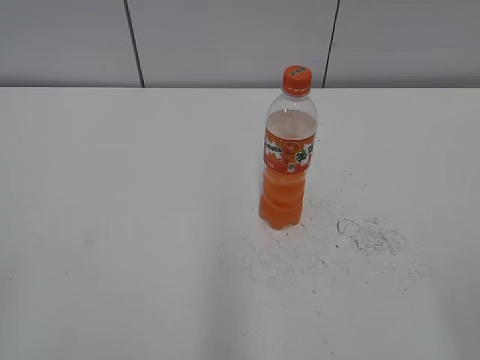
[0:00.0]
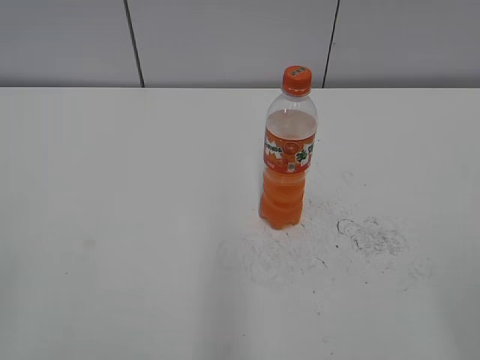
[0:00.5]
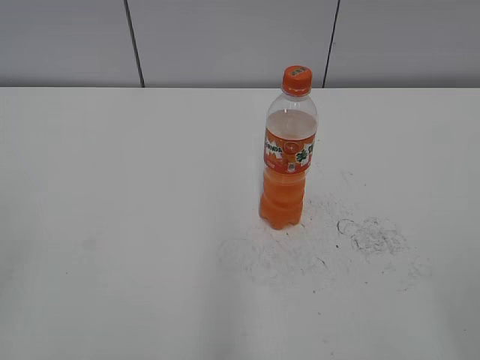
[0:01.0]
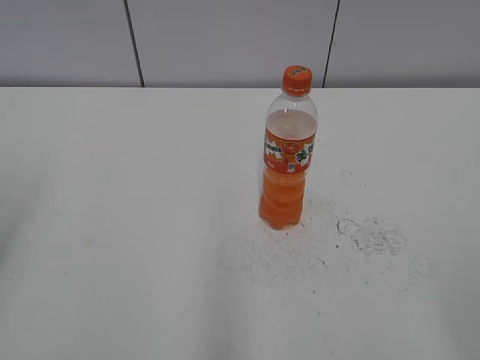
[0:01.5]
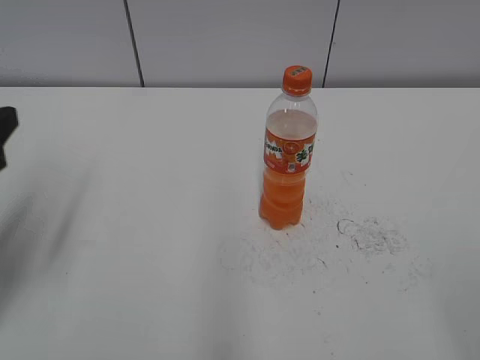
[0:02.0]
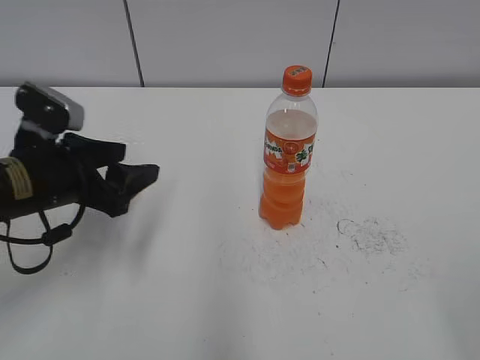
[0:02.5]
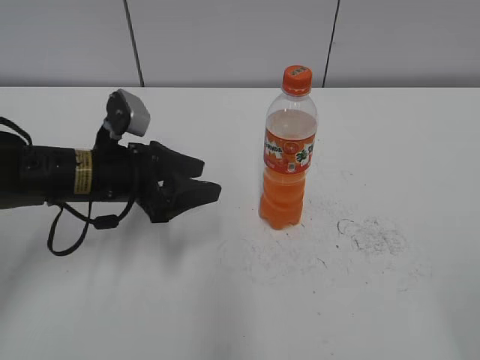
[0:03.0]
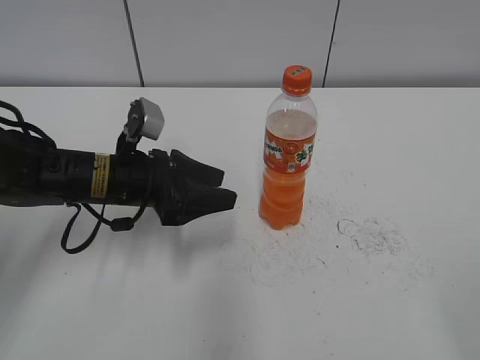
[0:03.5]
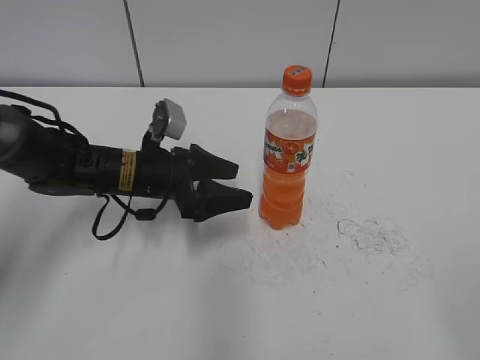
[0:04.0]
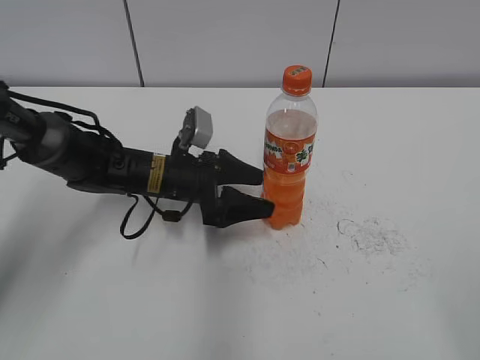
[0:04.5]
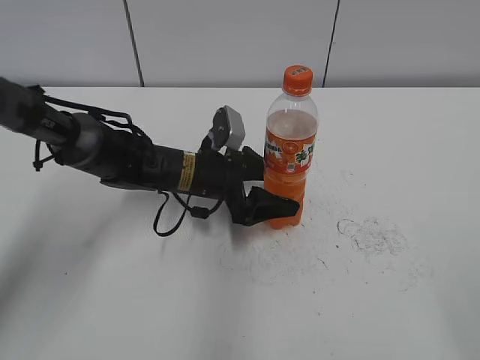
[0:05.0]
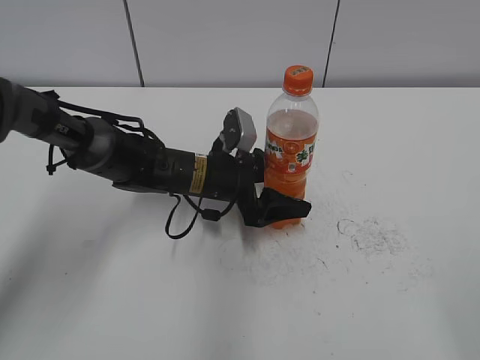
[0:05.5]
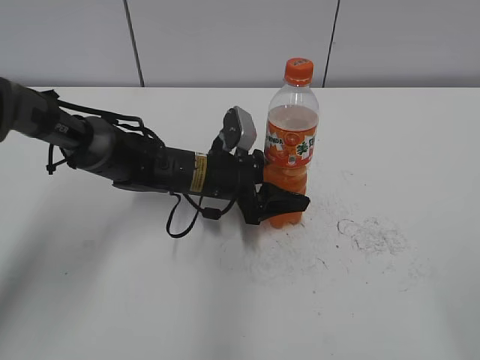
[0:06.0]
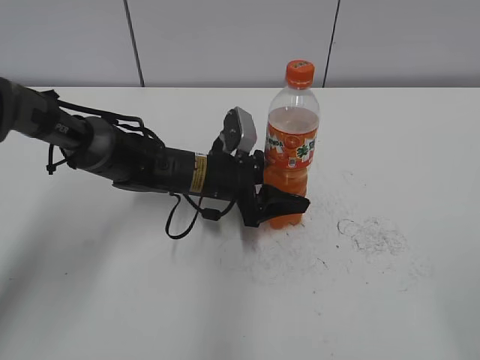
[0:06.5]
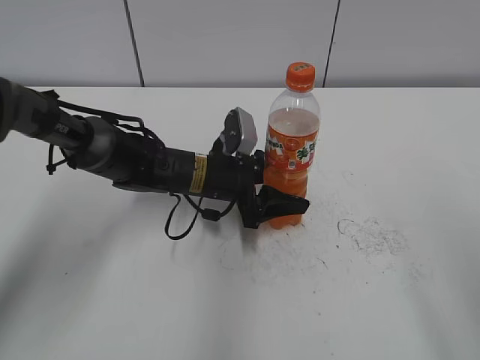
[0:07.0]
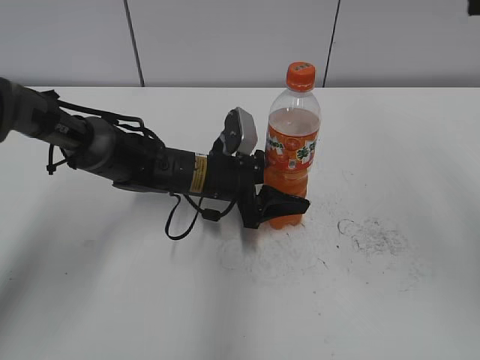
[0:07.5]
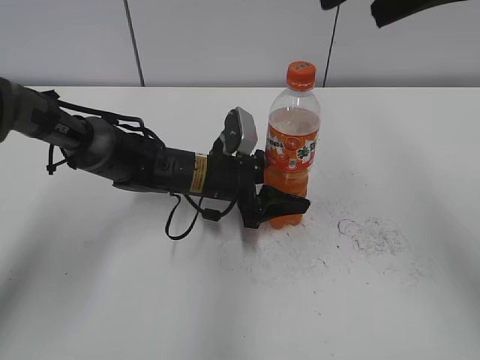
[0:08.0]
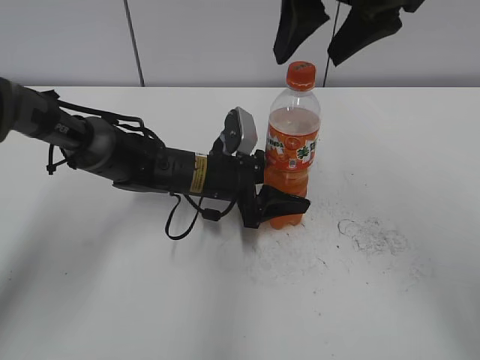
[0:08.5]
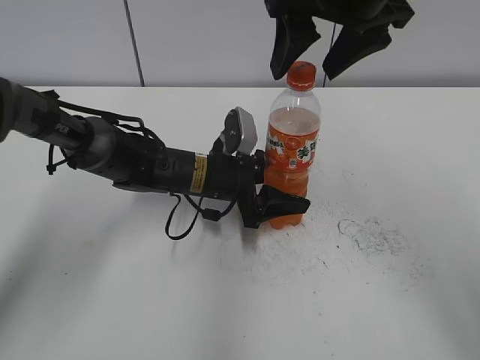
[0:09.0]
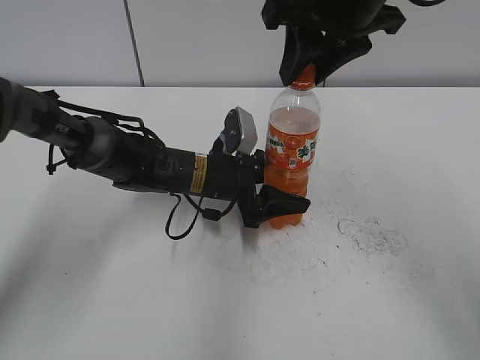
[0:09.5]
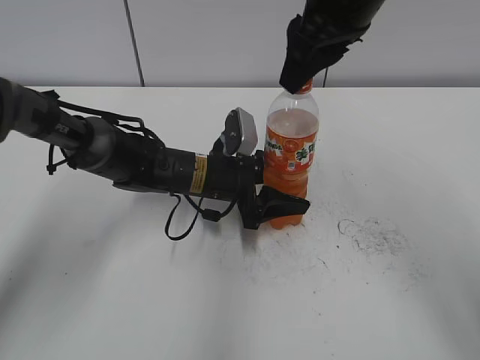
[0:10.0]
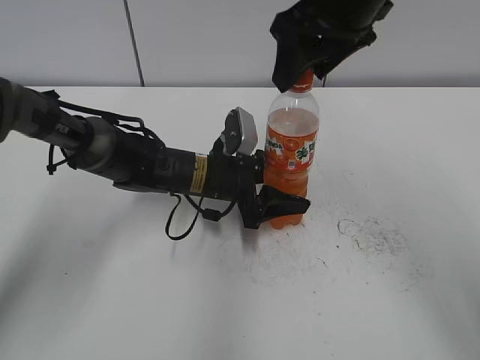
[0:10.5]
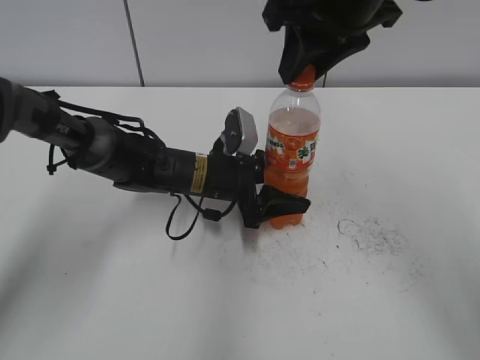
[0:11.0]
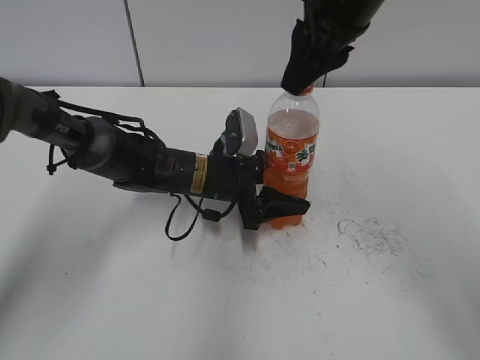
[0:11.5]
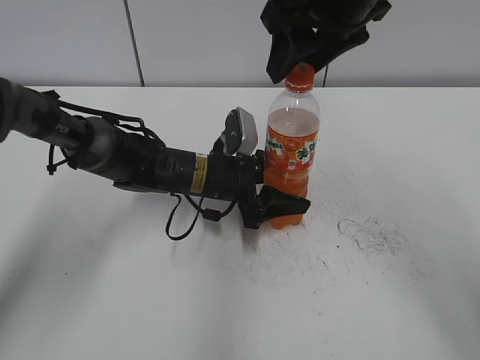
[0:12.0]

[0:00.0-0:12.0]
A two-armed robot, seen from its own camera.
Step, 0:00.0 to 0:07.5: Grab the Mirinda with the left hand.
0:02.0 to 0:04.0: The left gripper heads to the right, forward and downward, covering roughly 25 cm, and opens up.
0:04.0 to 0:06.0: The left gripper moves to the right, about 10 cm, and closes up.
0:06.0 to 0:08.0: The right gripper travels forward, upward and to the left by some 35 cm.
0:08.0 to 0:10.0: The right gripper moves downward, forward and to the left, roughly 10 cm, and closes.
0:10.0 to 0:12.0: The right gripper opens.

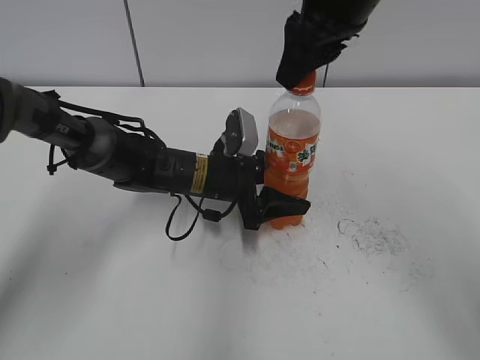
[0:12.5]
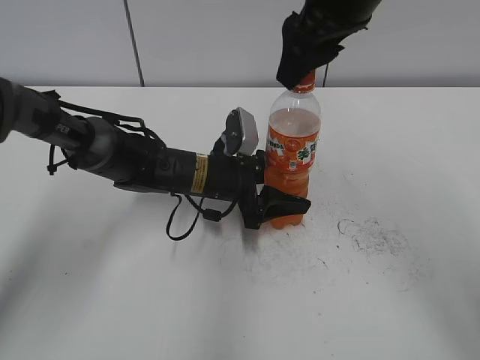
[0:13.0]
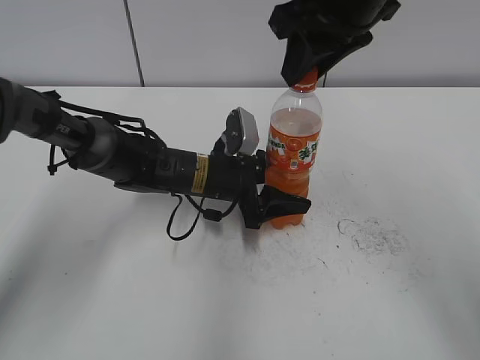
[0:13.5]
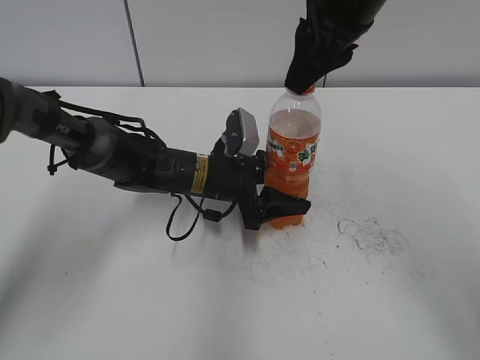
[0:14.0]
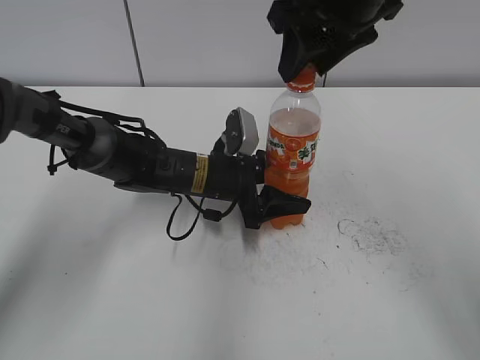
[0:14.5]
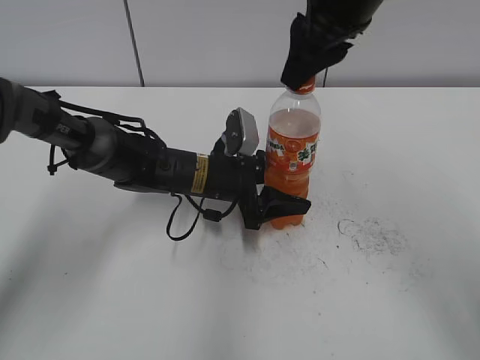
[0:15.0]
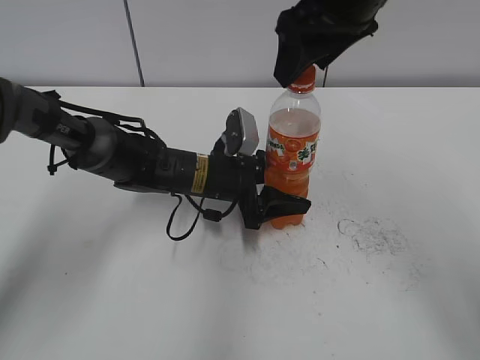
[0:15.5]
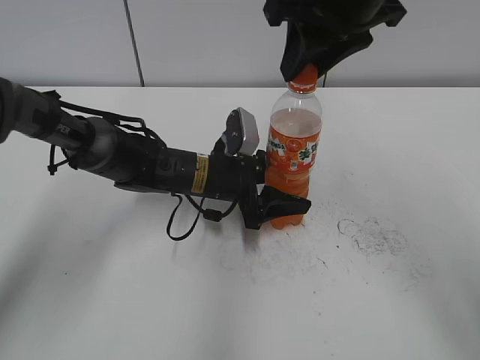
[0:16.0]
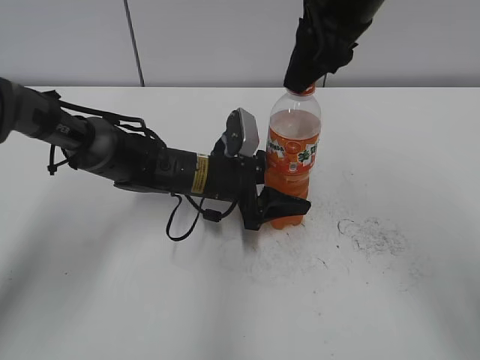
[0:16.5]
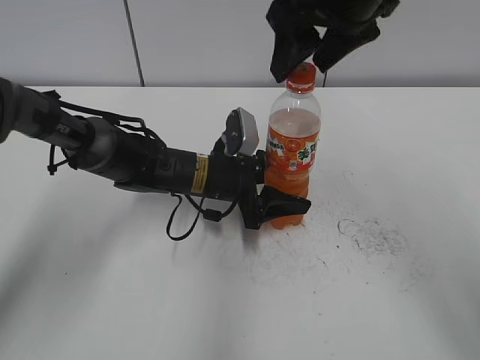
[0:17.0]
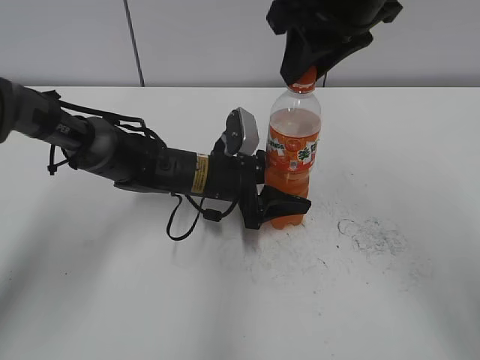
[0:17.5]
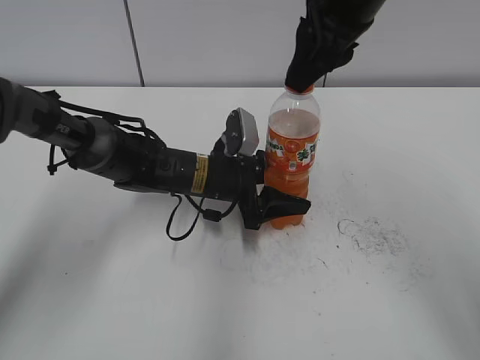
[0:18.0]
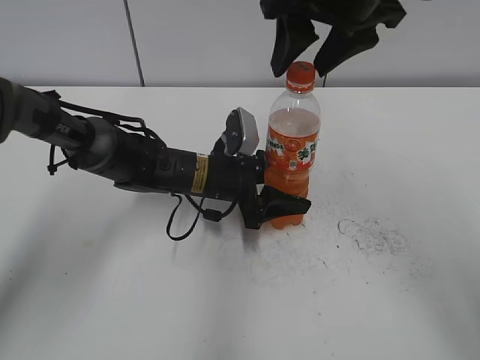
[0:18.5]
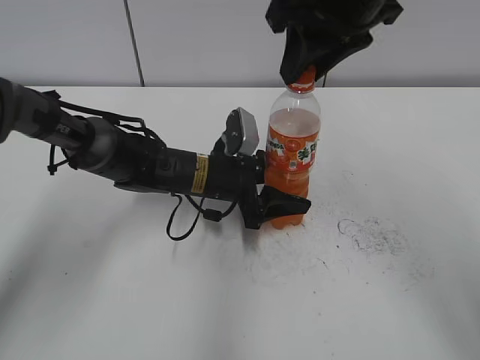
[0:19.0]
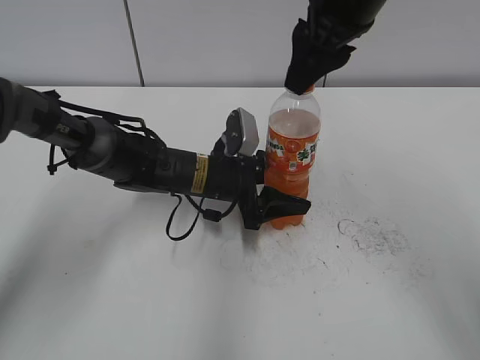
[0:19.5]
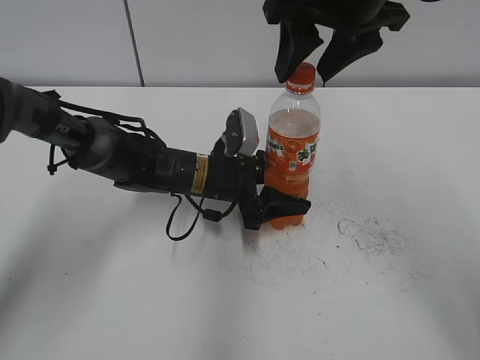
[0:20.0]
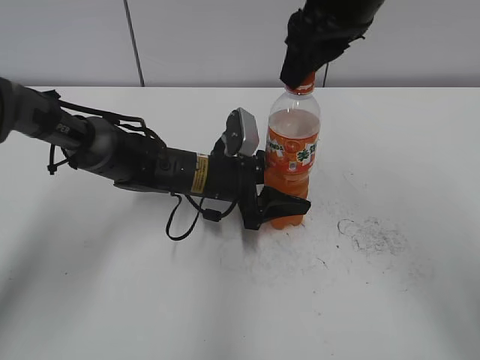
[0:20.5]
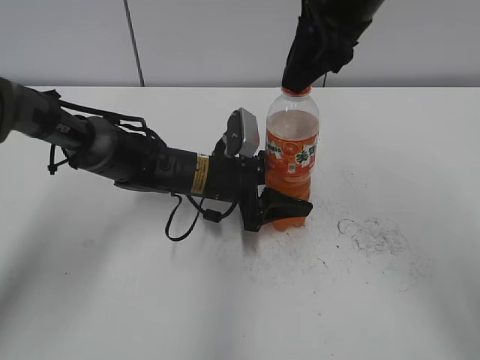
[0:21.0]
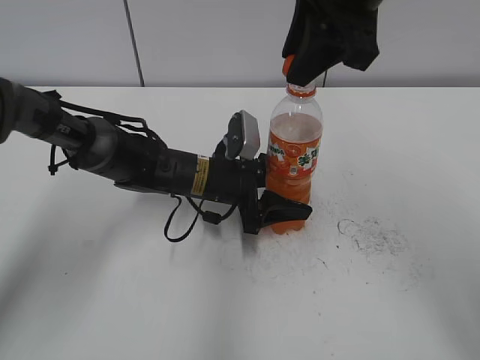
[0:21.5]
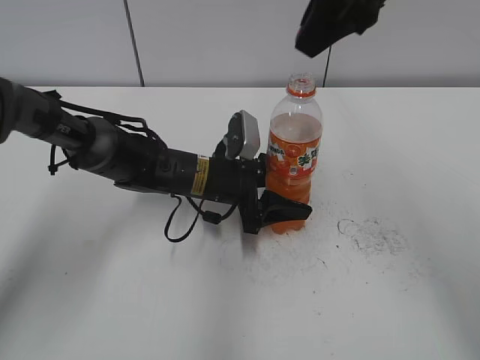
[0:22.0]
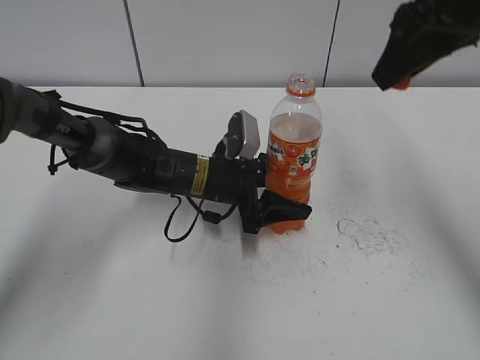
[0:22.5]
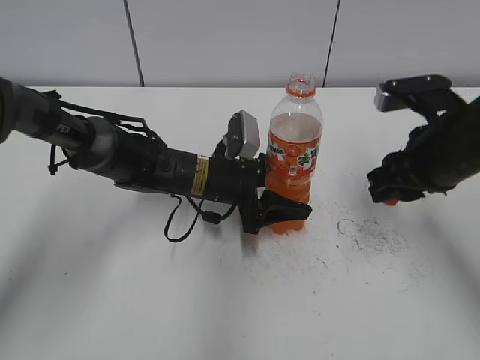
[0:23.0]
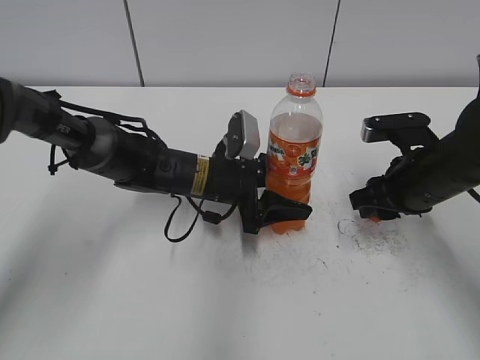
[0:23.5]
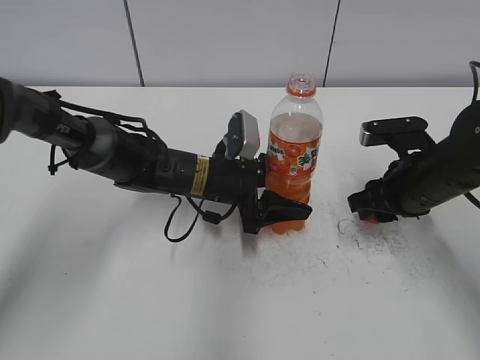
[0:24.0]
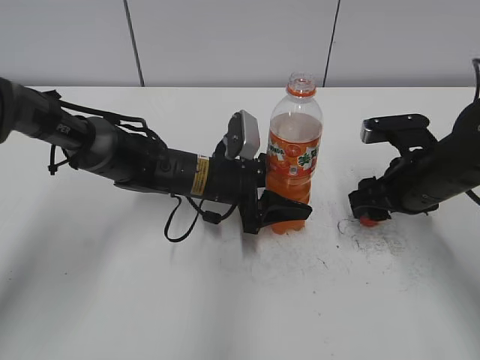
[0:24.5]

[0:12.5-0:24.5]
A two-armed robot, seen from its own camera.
0:12.5 to 0:14.5: The right gripper opens up.
0:14.5 to 0:16.5: The right gripper closes its fingers.
0:16.5 to 0:18.5: The right gripper opens.
0:18.5 to 0:20.5: The right gripper closes up.
0:20.5 to 0:22.5: The right gripper travels to the right by roughly 10 cm.
0:22.5 to 0:24.5: The right gripper travels downward by approximately 25 cm, and opens.

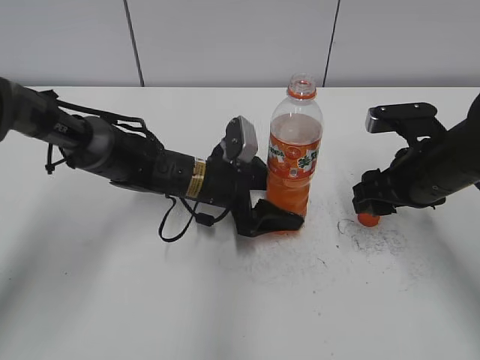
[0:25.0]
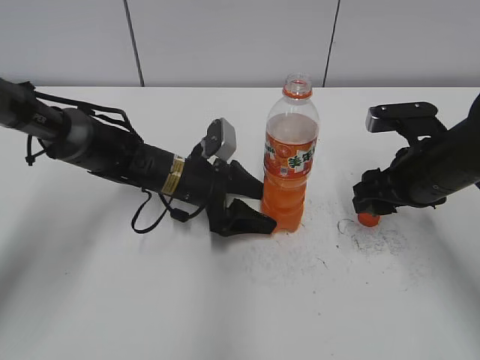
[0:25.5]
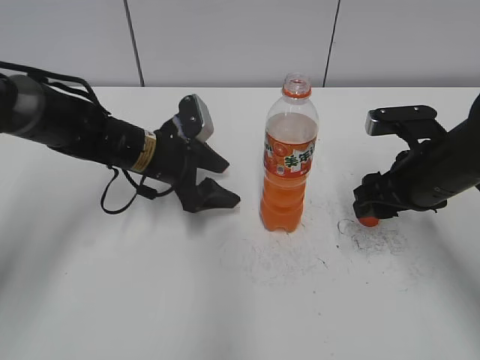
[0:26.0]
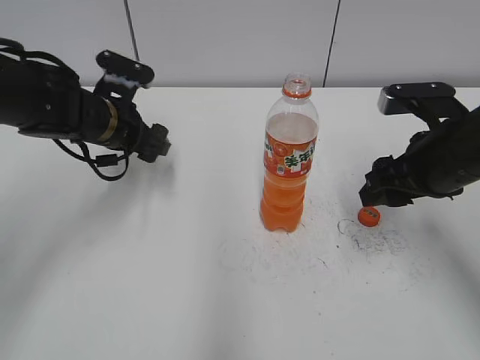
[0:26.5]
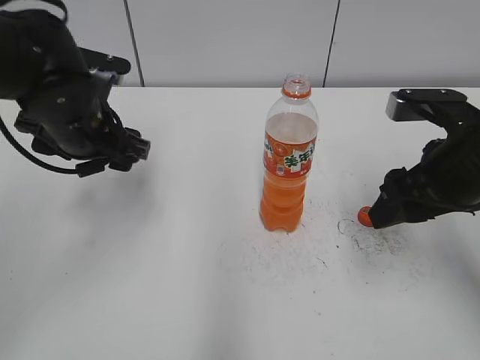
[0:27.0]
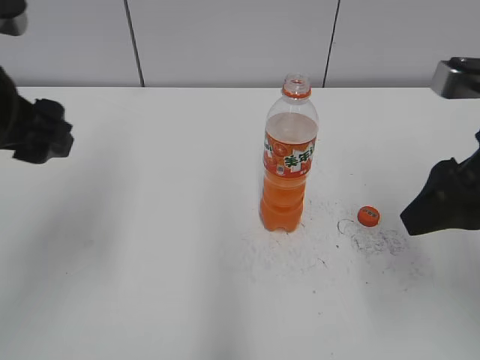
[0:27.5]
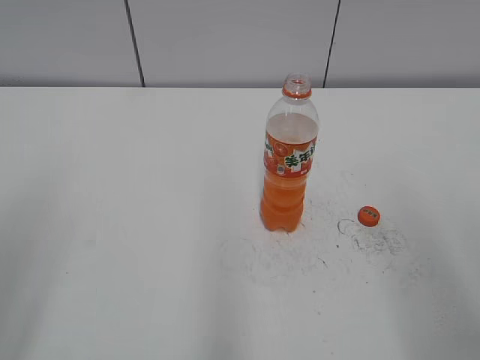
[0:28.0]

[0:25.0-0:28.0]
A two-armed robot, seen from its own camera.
0:25.0 to 0:26.5: The left gripper goes some 15 cm to the left and upward.
0:26.5 to 0:28.0: The right gripper is displaced backward and upward by some 20 cm, while the left gripper is displaced backward, upward and to the left by some 35 cm.
